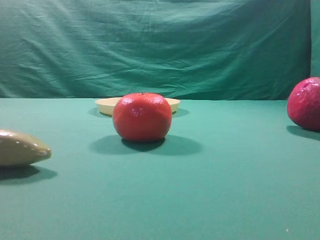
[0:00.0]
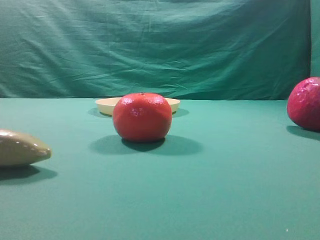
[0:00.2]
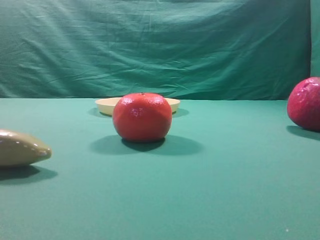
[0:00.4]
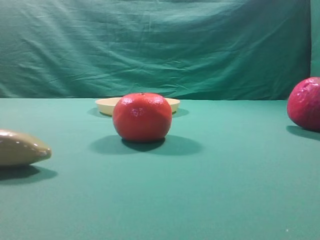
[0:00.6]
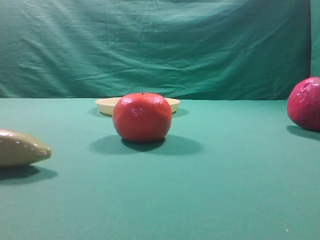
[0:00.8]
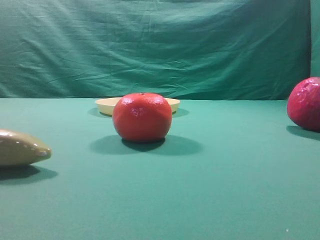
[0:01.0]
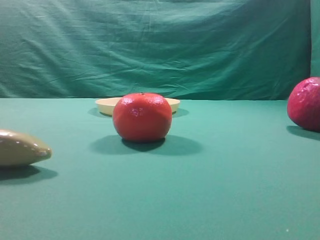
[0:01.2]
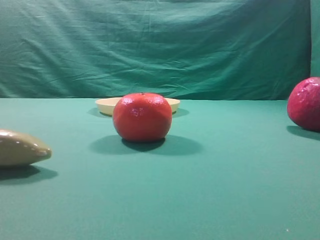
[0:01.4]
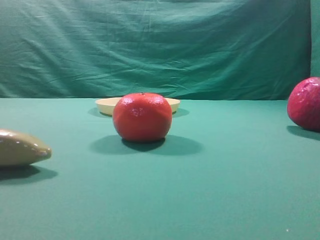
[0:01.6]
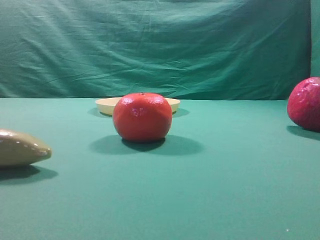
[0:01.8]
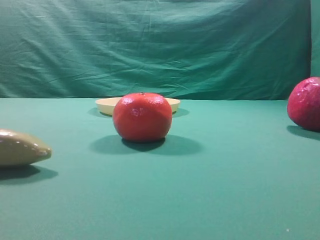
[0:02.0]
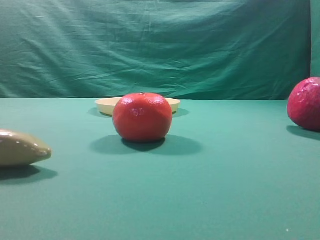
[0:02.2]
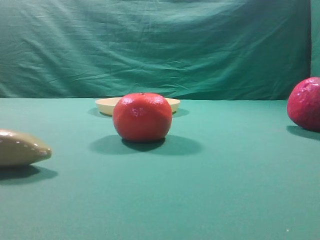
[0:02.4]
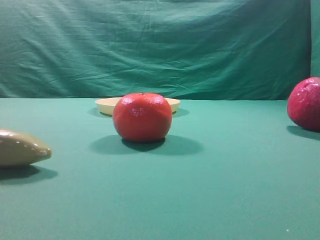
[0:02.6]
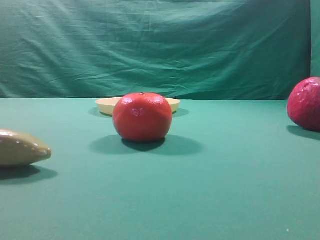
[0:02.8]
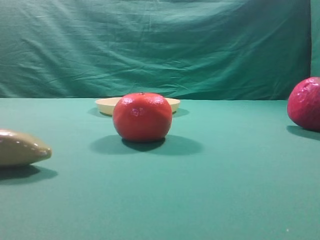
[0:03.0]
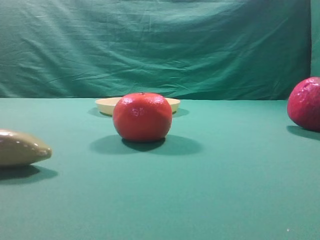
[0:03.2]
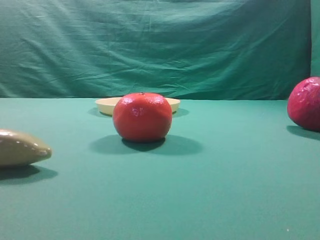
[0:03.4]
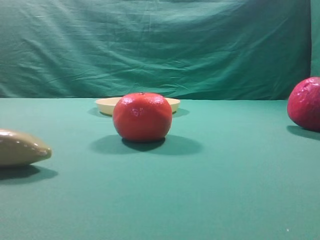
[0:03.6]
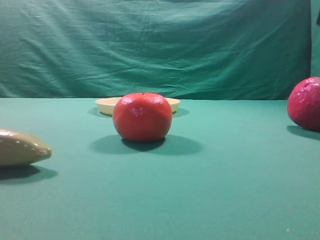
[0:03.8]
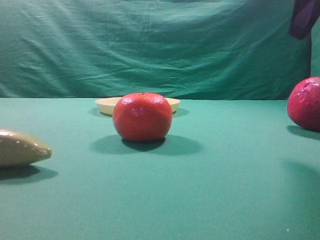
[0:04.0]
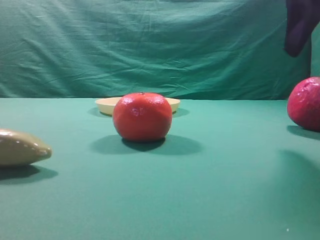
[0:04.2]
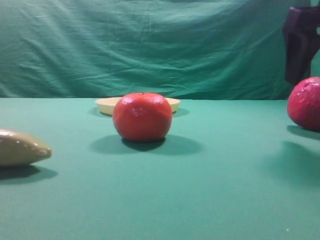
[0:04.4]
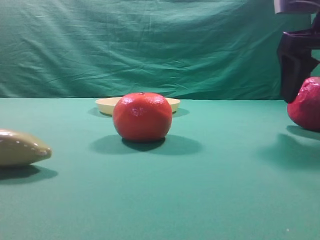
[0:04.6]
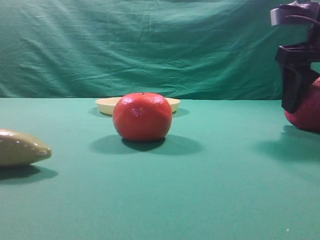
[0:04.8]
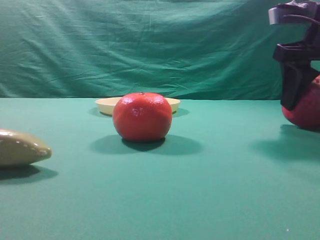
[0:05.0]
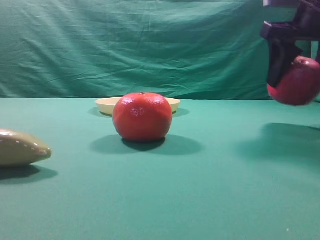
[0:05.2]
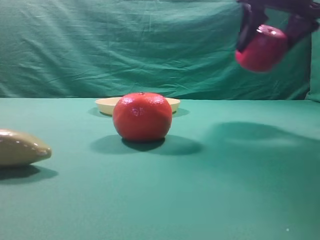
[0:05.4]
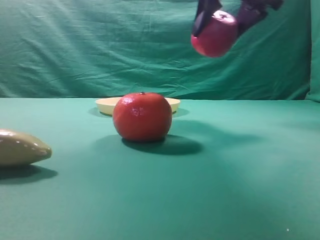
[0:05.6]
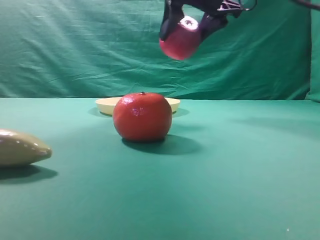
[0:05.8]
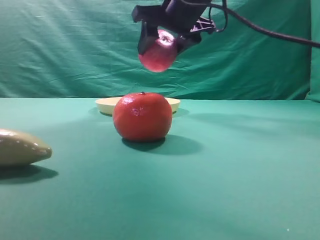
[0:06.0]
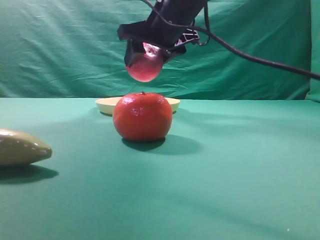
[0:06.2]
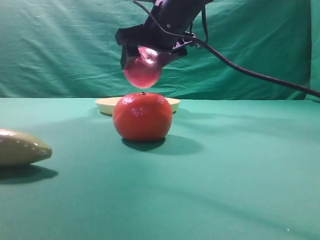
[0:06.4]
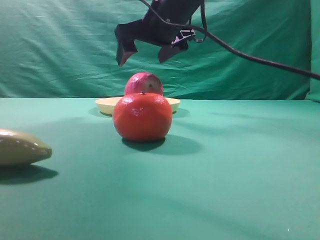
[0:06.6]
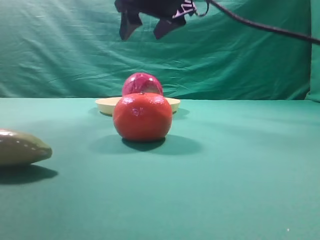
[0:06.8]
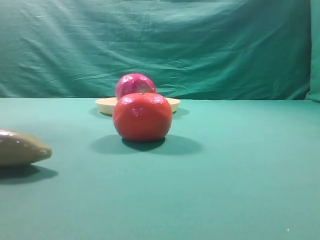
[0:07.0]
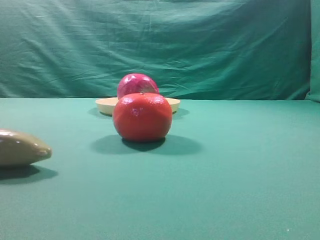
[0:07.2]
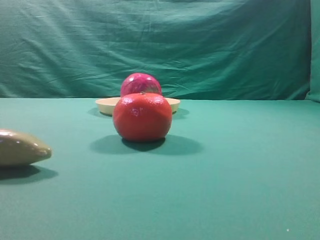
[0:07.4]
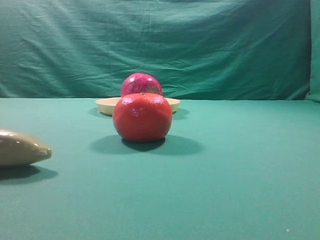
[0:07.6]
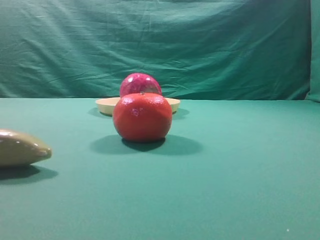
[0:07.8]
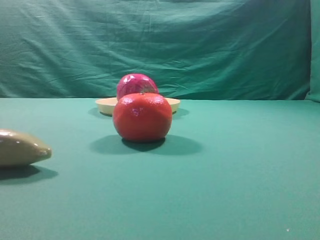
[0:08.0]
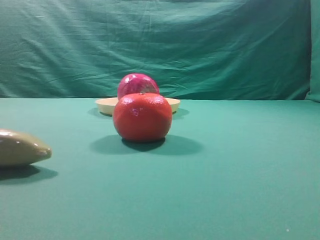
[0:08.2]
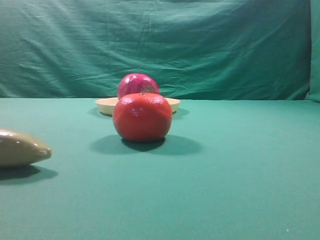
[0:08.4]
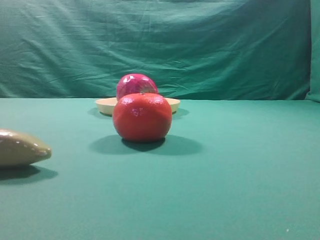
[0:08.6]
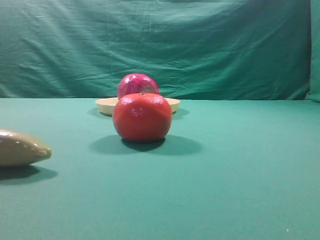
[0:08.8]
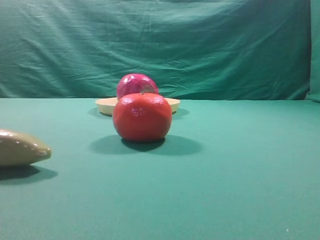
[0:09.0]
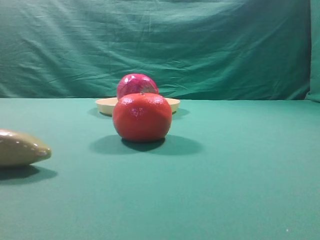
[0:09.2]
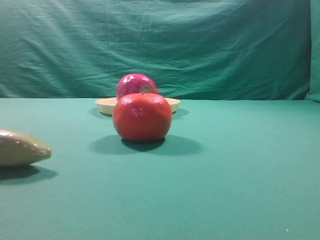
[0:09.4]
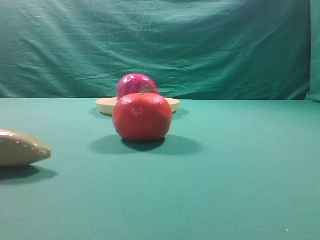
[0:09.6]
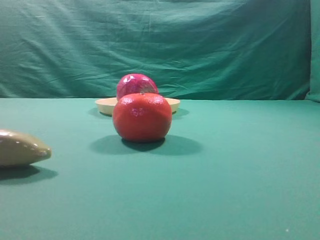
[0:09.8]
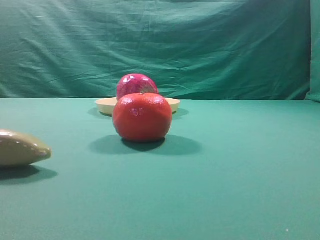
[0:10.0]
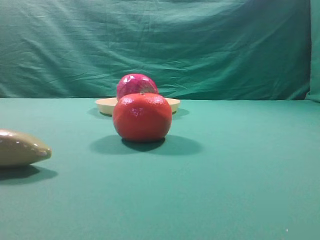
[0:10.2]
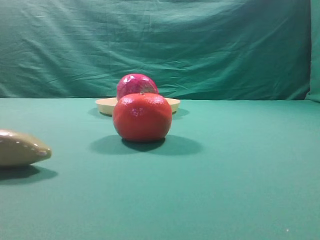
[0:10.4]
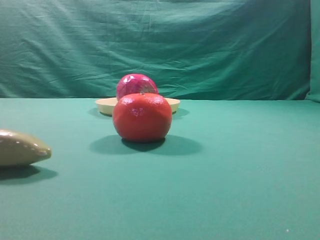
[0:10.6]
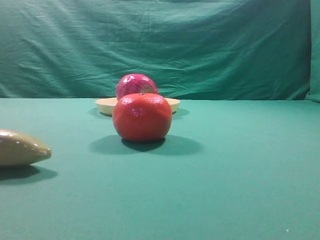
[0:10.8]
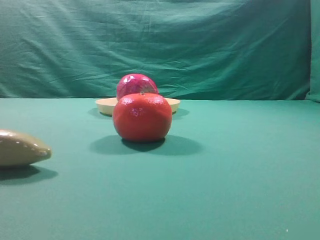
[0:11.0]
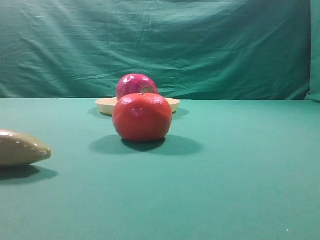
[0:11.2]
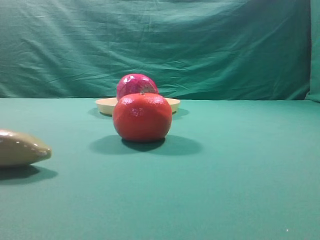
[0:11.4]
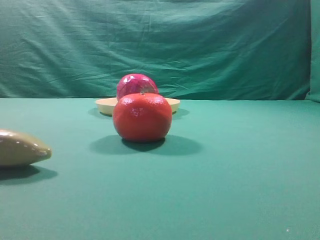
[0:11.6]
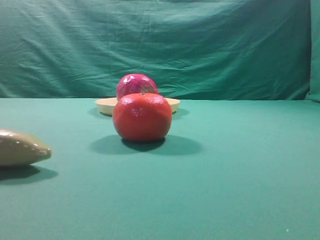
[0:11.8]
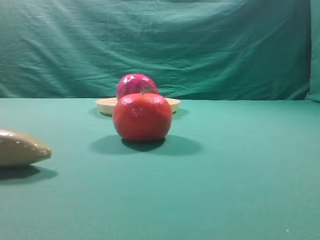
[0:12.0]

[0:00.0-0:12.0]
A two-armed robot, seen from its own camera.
Task of the whole recording: grasp the apple and place it into the yellow plate.
Step, 0:00.0 to 0:05.2: Grasp the fruit that can keep the doctor away.
Step, 0:05.4 to 0:06.6: Place the picked object into the yellow plate.

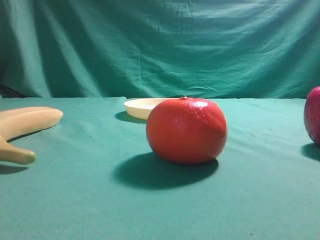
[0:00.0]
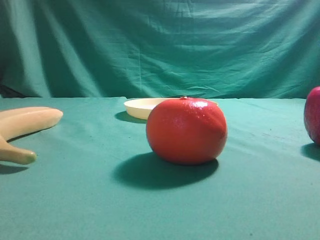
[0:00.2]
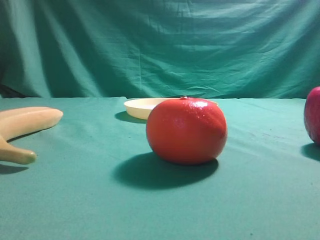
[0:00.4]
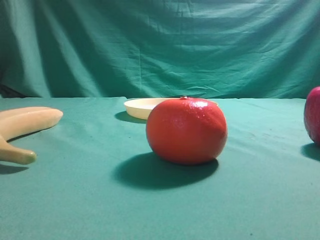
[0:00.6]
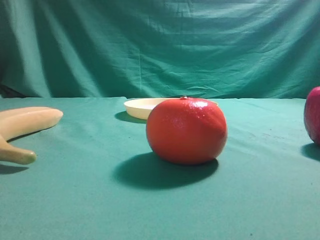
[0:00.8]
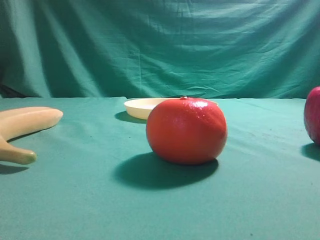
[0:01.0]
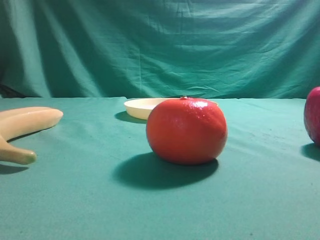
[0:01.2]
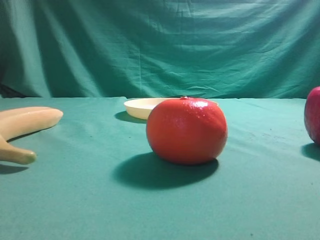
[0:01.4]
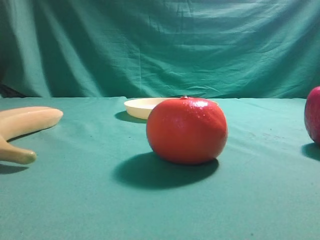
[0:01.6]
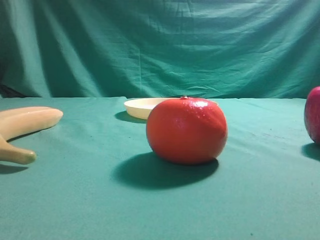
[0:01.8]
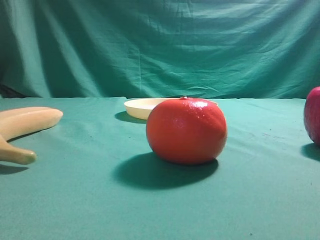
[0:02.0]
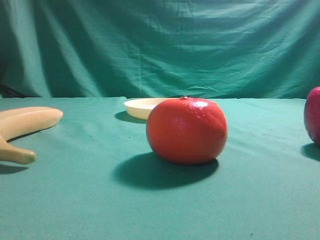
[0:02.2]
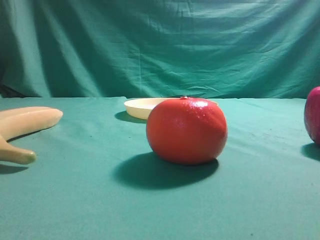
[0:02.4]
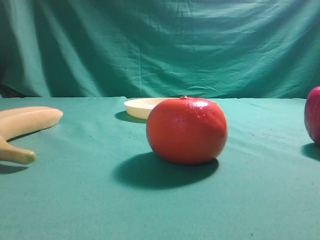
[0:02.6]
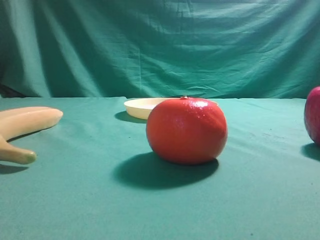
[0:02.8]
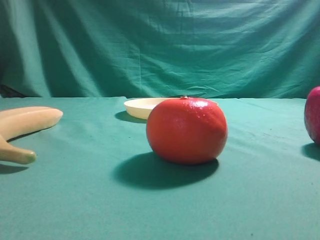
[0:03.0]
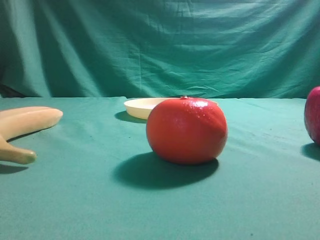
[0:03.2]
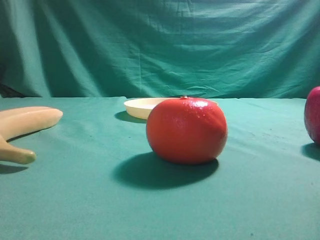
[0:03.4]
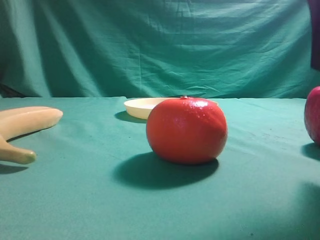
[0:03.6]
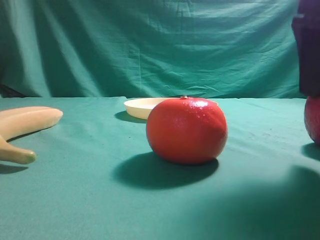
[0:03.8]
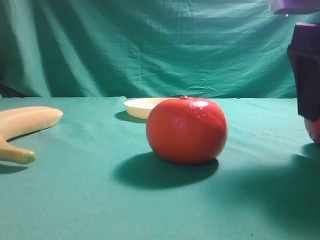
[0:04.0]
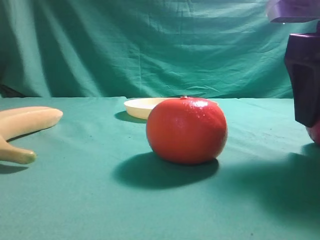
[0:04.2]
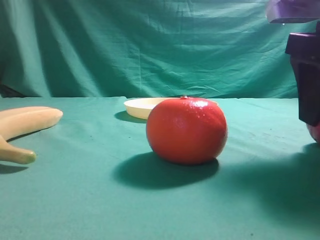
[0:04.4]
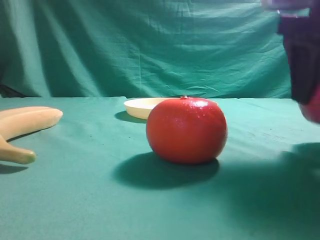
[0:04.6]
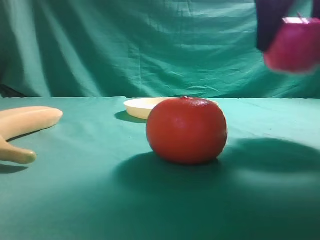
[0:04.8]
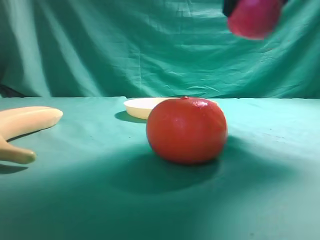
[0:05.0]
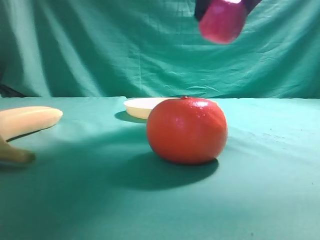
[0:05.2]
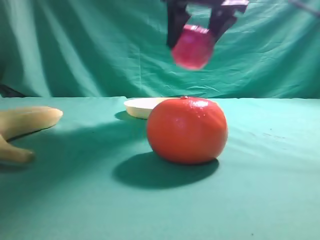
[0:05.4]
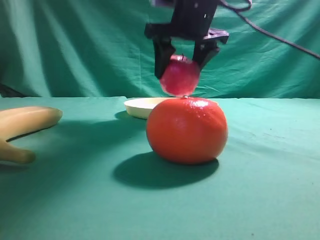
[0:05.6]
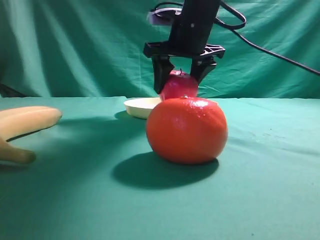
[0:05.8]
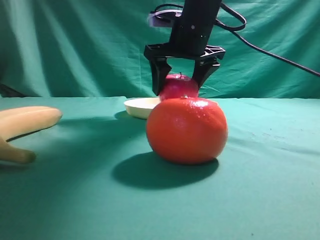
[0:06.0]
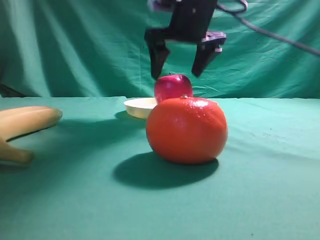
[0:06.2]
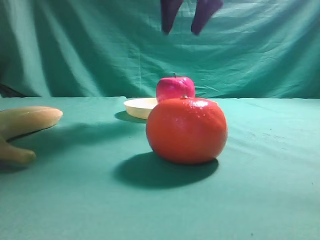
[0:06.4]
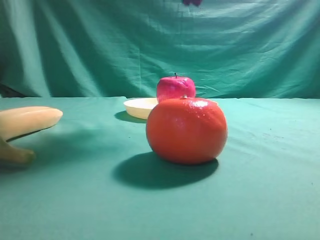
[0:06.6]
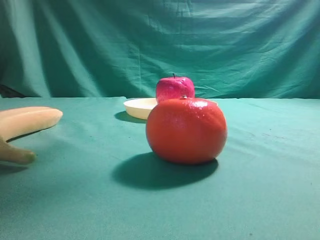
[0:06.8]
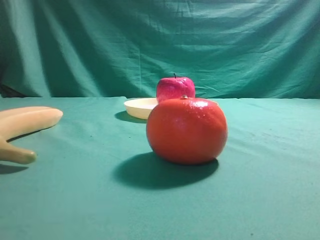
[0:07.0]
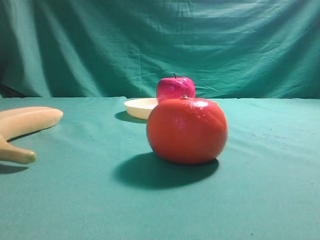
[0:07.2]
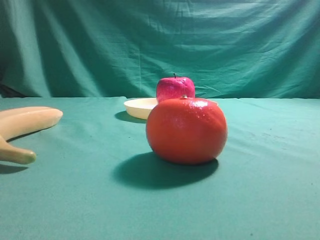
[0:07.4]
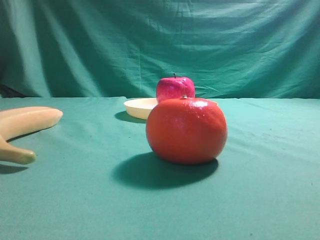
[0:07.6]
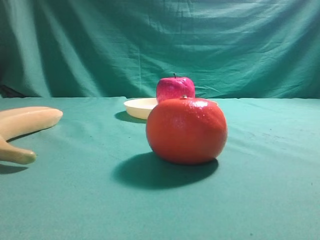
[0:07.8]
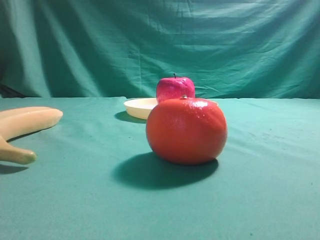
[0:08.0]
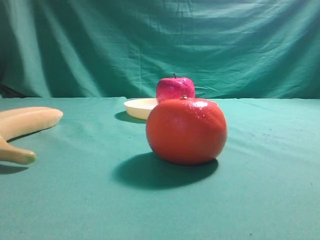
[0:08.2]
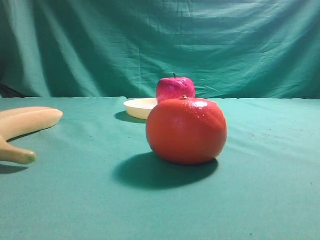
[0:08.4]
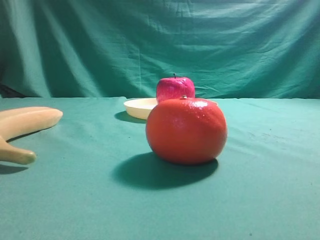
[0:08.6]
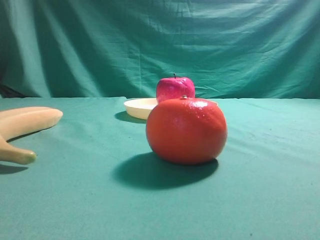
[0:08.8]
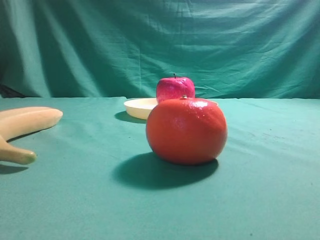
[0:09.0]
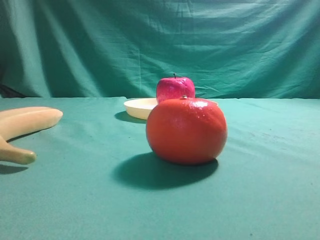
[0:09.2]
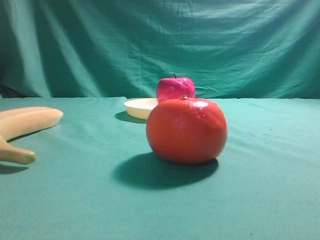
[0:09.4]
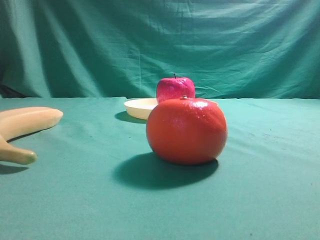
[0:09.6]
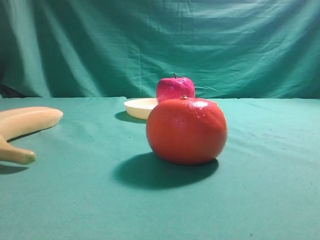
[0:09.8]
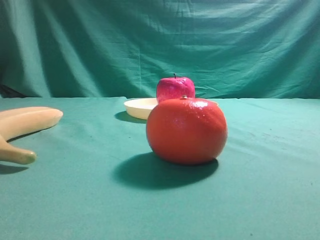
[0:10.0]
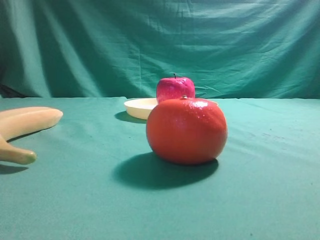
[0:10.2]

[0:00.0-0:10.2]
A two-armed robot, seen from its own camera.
Task of the whole recording: grasp the apple and place it into the yellow plate.
Step, 0:00.0 to 0:04.6: Grasp the fruit that can keep the doctor away.
Step, 0:04.8 to 0:06.2: Place the picked object into the yellow plate.

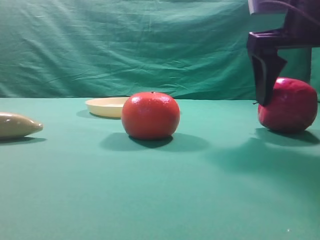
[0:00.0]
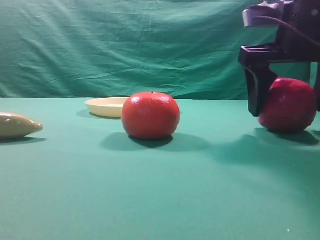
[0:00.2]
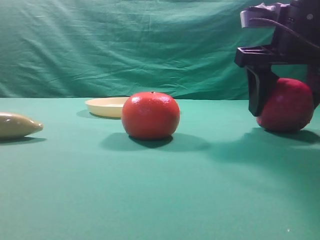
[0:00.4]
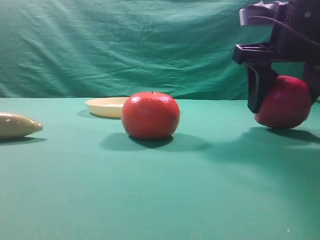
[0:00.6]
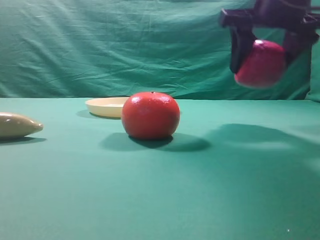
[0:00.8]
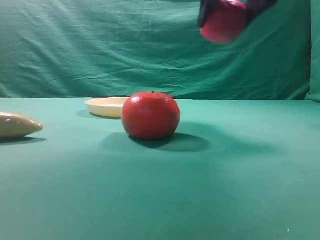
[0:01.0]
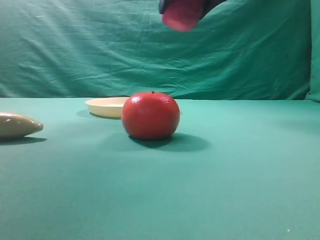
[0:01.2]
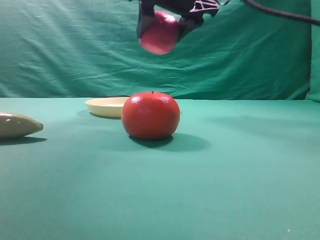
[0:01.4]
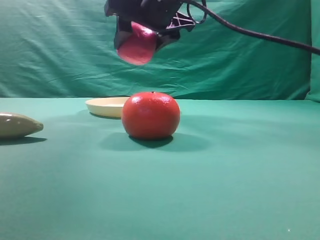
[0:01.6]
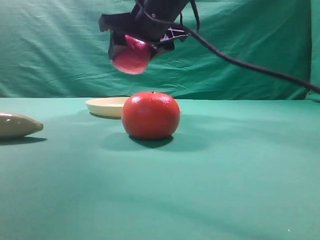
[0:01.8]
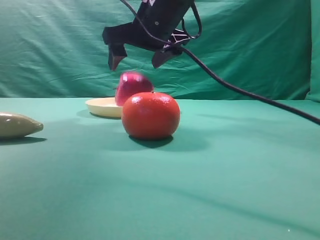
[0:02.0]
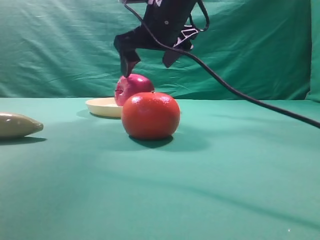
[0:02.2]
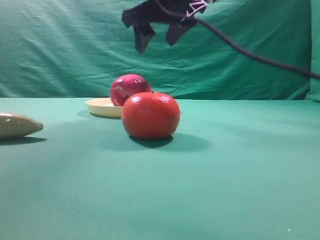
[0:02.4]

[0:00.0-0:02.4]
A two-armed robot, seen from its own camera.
Task of the whole recording: grasp the apple and place it into the yellow plate.
Step, 0:00.8 to 0:01.0: Place the picked object into the yellow plate.
